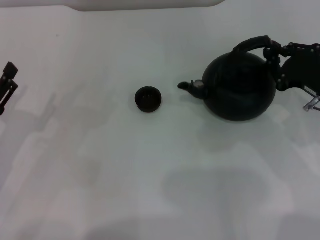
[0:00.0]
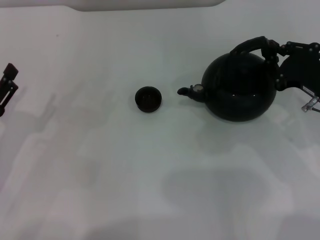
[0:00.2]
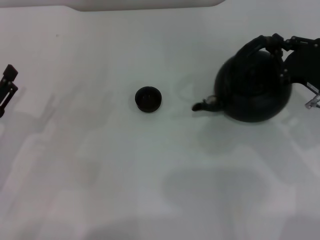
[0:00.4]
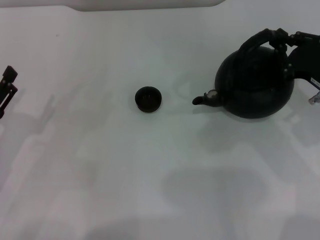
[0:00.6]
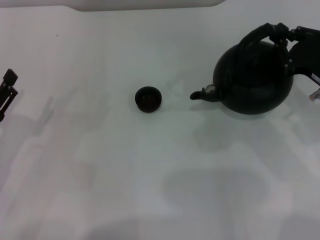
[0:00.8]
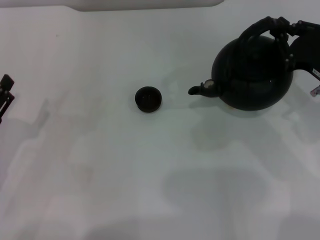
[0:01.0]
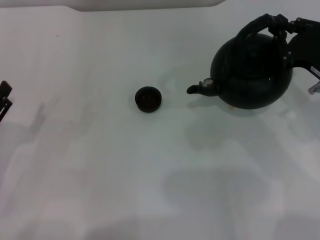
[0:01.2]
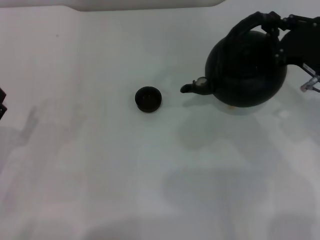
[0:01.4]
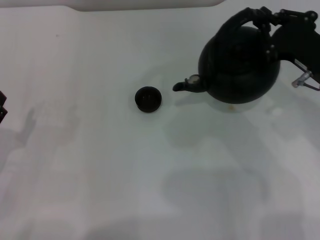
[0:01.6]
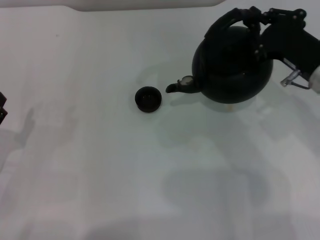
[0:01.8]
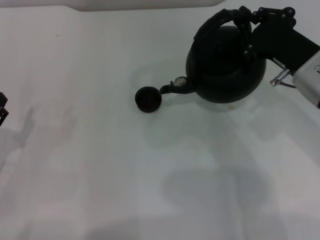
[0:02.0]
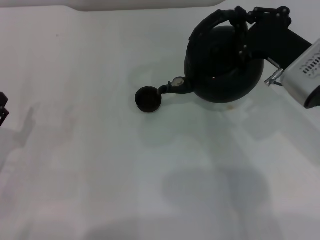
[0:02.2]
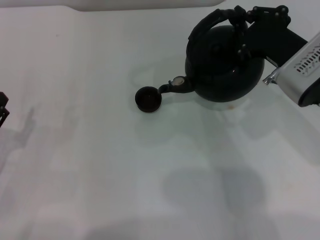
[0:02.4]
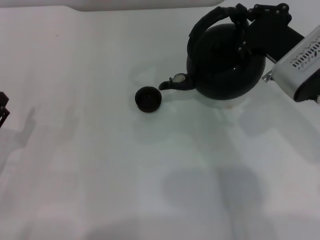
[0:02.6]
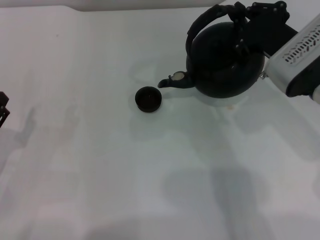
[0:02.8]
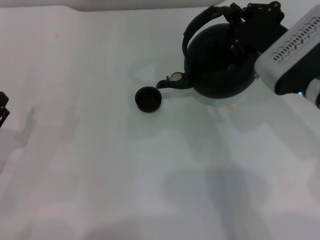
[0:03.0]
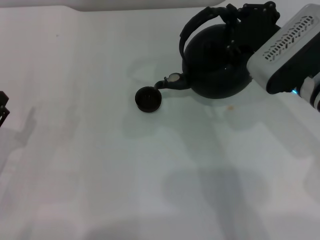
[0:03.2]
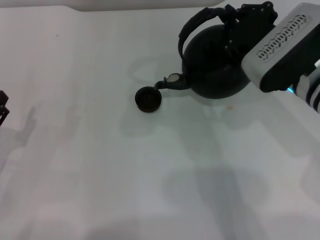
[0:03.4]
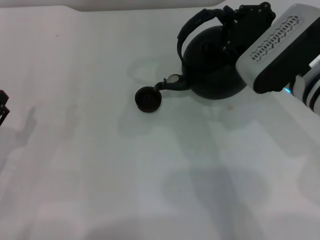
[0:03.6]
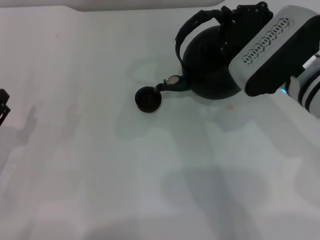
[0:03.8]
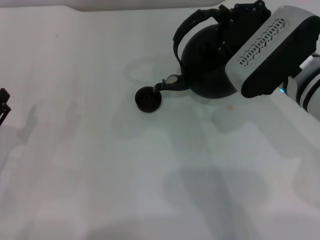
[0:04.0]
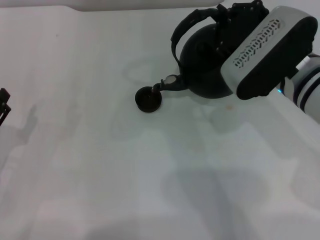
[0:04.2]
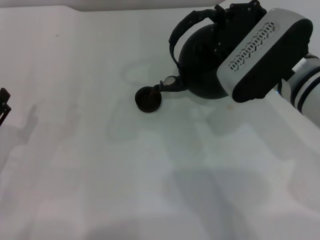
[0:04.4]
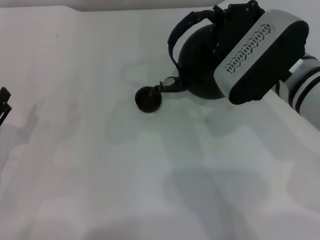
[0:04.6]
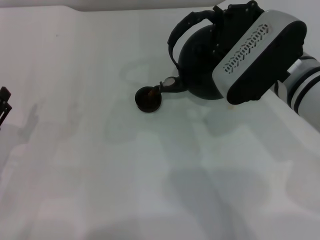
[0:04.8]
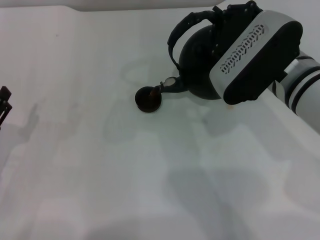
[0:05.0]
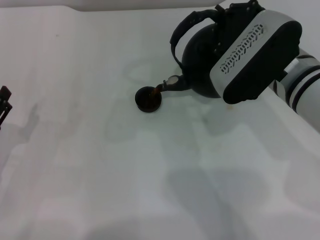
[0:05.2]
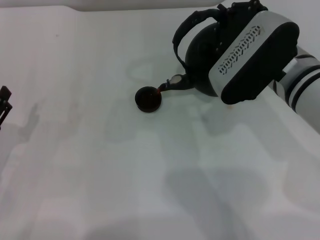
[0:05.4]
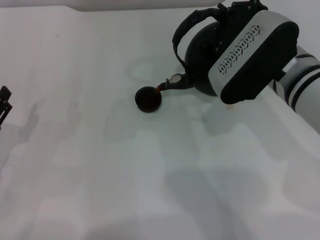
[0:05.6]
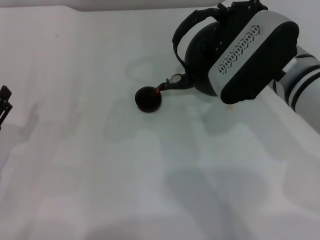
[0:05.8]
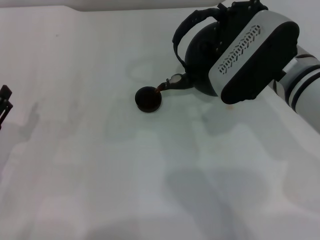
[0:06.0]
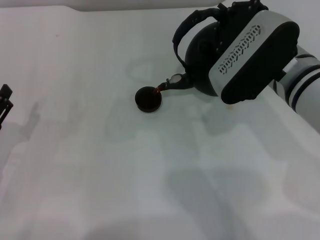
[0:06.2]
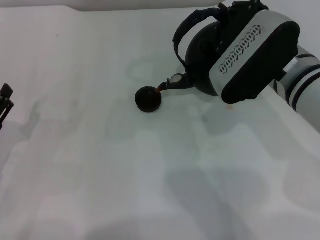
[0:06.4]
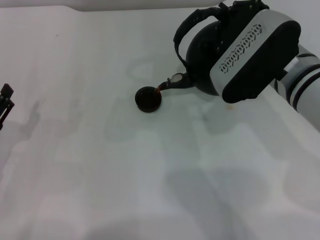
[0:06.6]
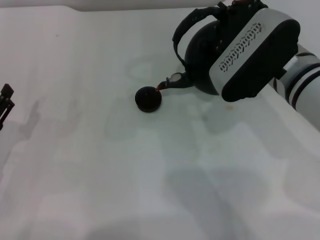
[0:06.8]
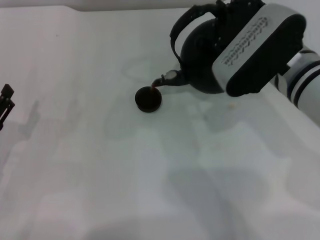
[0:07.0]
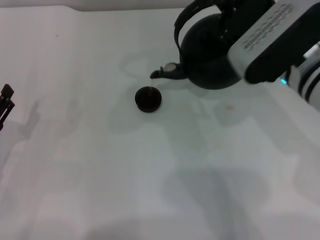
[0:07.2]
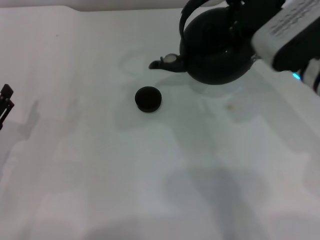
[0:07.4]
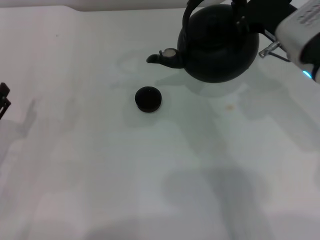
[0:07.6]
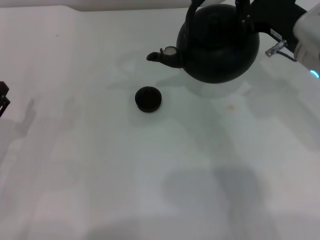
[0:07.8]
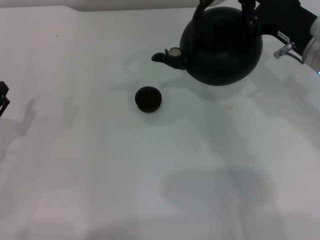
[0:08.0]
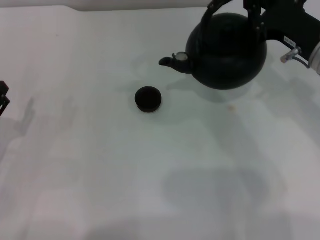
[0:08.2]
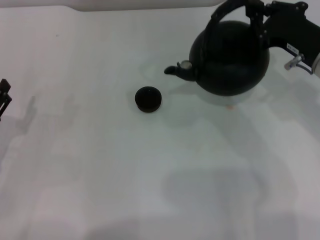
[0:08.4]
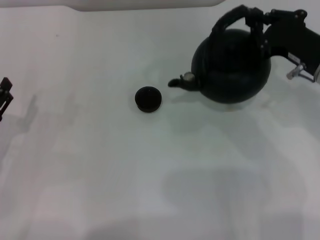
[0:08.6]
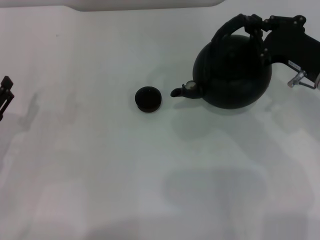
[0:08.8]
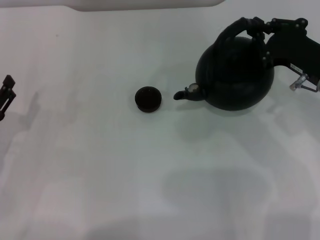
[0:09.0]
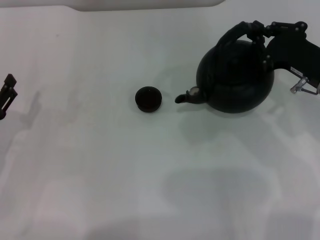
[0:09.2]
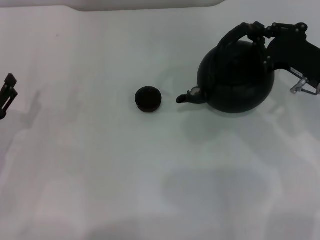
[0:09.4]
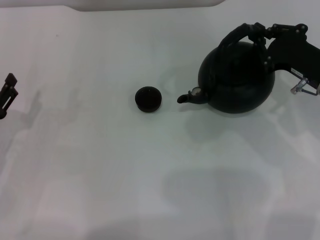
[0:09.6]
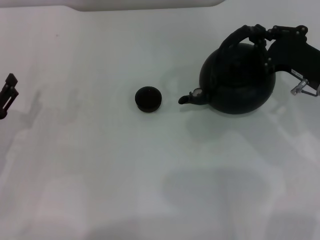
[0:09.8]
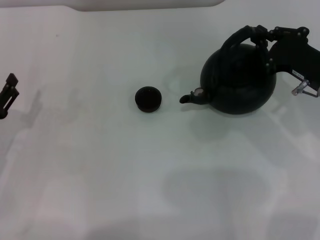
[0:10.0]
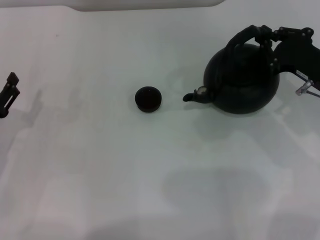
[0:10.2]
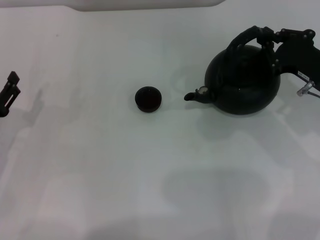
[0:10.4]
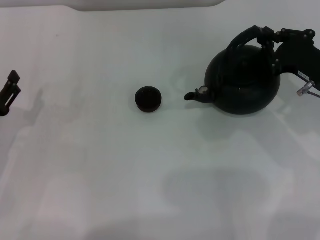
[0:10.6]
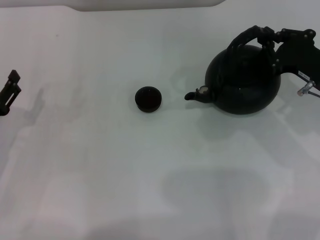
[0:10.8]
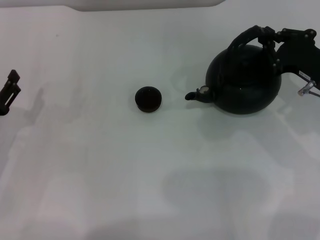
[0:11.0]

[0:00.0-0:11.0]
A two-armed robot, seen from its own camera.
Task of the whole recording: Grasp the handle of the teapot with one hand and pour tea into the teacup.
Step, 0:00.0 to 0:02.8: Pick up the teapot with the right gripper.
Step, 0:03.0 to 0:07.2: Pour tea into the teacup with the right gripper.
0:00.0 to 0:01.6: The right gripper moves approximately 5 cm.
0:01.6 to 0:03.2: The right gripper goes roughly 5 cm to the left.
0:03.2 to 0:04.8: The grippers move only a little.
0:04.8 to 0:06.2: The two grippers keep their place.
0:06.2 to 0:07.8: The right gripper is displaced to the right by about 5 cm.
0:07.8 to 0:09.4: The right gripper heads downward and to the right, covering roughly 10 cm.
0:09.4 to 0:11.0: The grippers stay close to where they were, moving slightly.

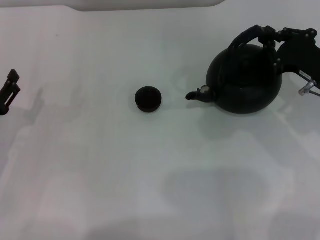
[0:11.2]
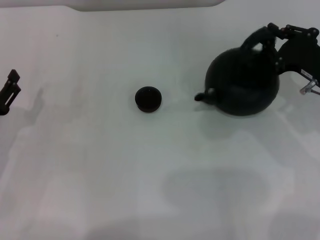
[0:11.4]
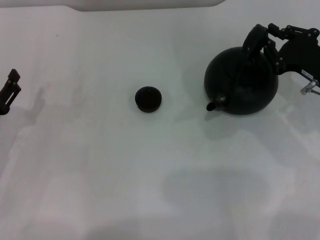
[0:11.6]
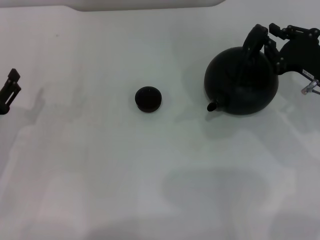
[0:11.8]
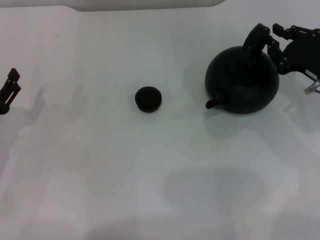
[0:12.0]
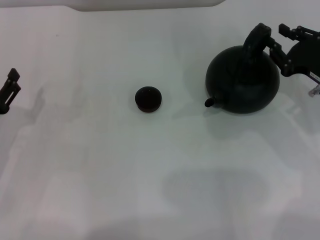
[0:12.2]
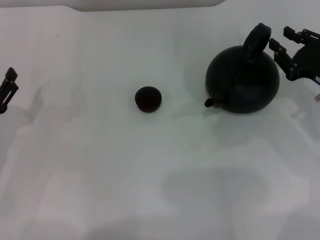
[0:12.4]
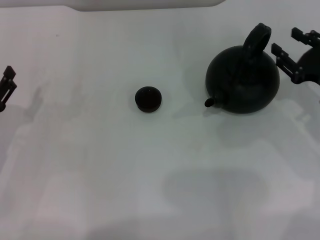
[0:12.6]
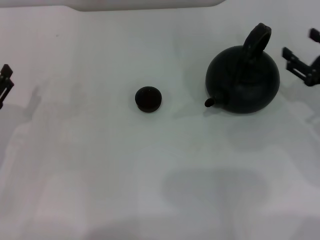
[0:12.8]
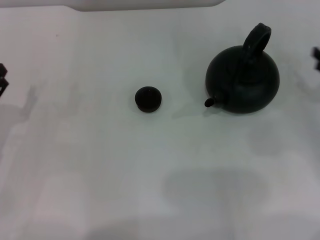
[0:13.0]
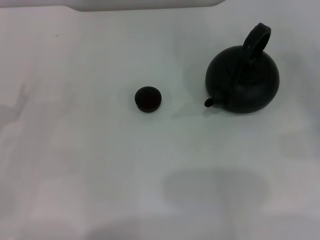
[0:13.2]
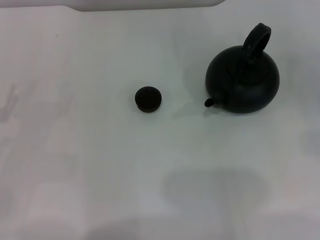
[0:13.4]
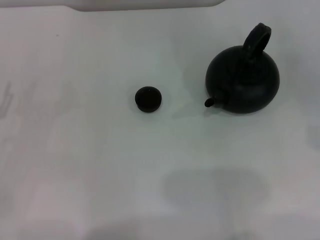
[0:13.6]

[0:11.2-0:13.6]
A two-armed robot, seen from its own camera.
Task of the whole recording: Grasp the handle of the teapot with one hand and pour tea into the teacup.
0:11.2 to 0:12.4: The right gripper opens.
0:12.4 to 0:13.6: The right gripper goes about 15 cm to the right, and opens up.
